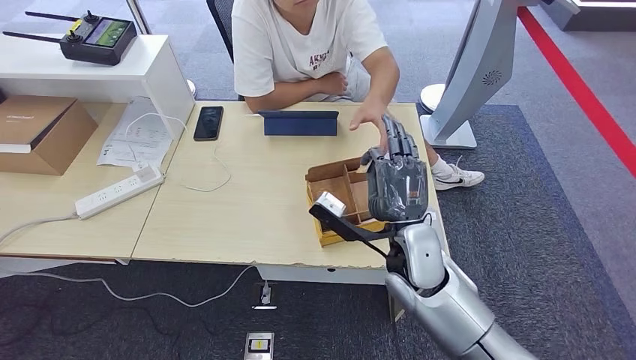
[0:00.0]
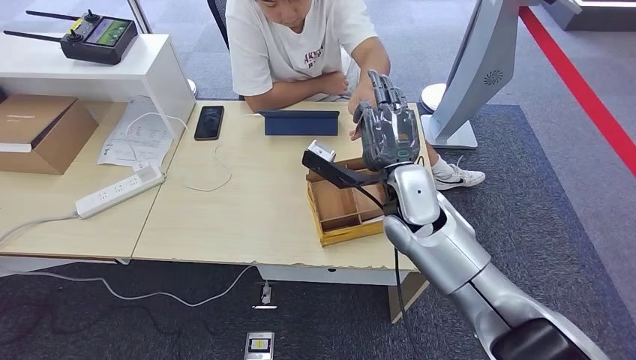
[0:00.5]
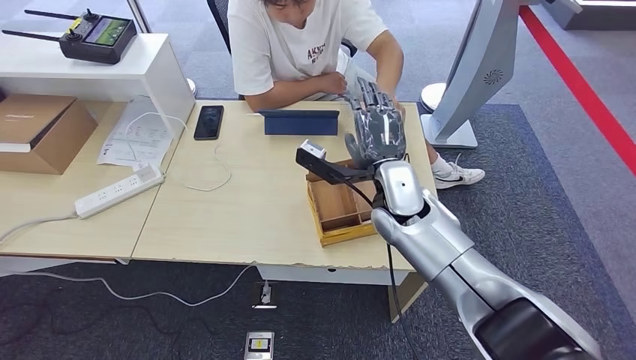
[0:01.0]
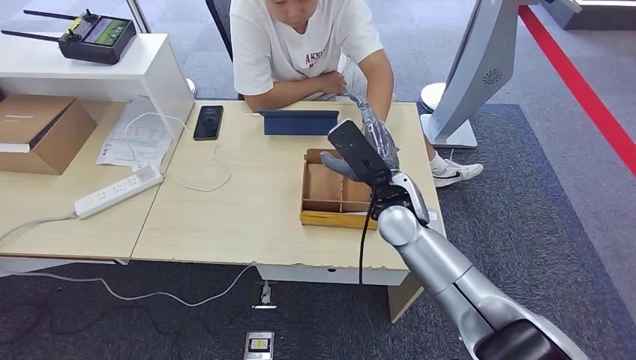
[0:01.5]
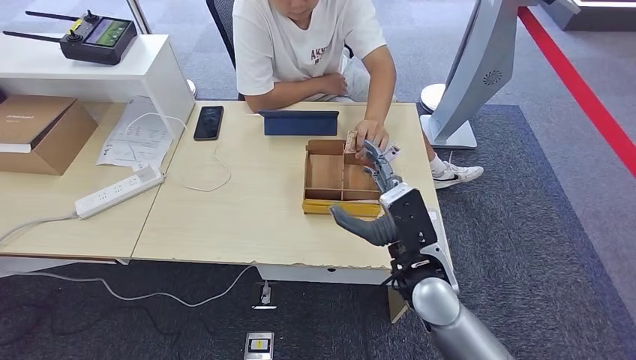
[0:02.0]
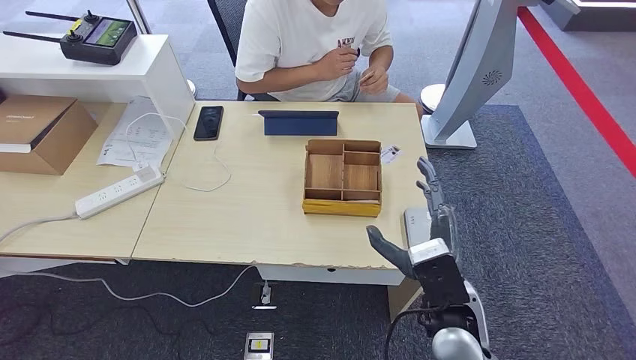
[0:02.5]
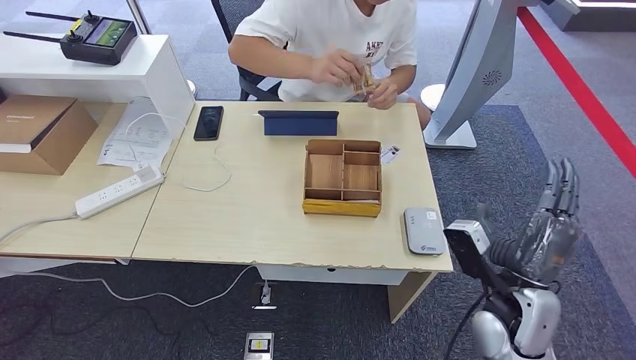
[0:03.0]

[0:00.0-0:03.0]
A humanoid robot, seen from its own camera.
Step, 0:00.0 to 0:03.0: Hand the room key to the person.
0:00.0 to 0:01.5: The right hand heads forward, covering approximately 5 cm.
0:01.5 to 0:03.0: The right hand shifts some 20 cm backward and to the right.
